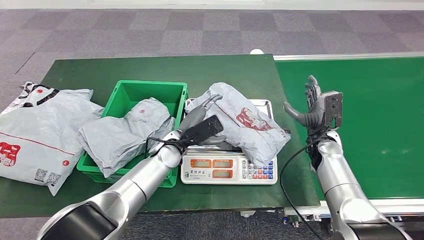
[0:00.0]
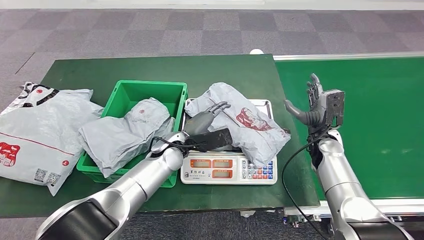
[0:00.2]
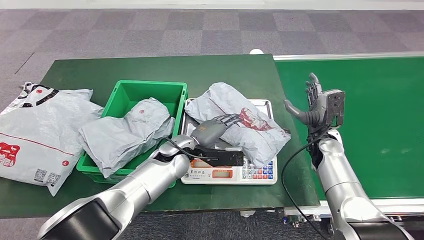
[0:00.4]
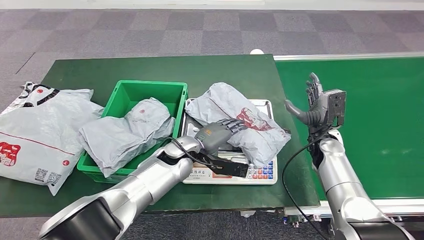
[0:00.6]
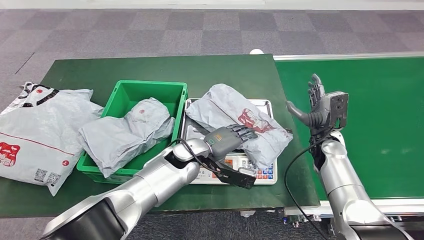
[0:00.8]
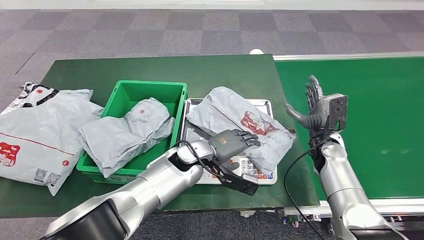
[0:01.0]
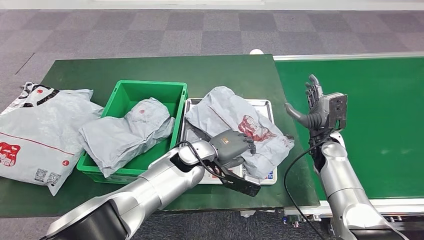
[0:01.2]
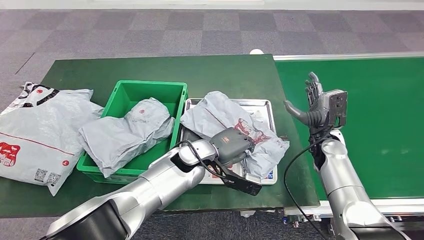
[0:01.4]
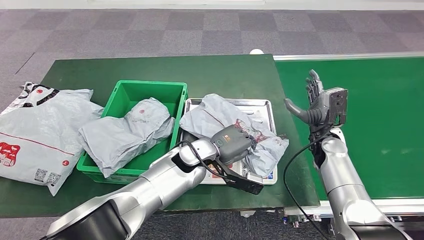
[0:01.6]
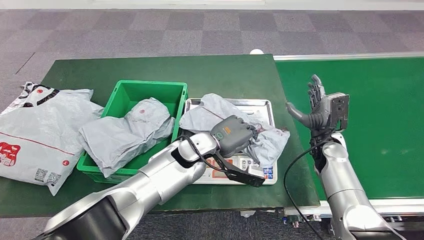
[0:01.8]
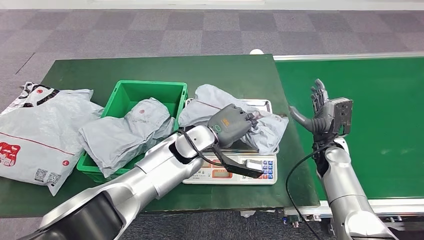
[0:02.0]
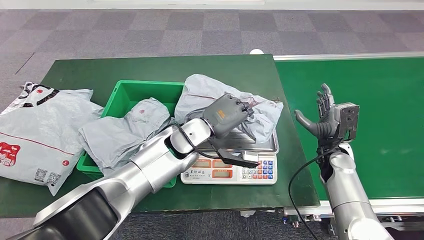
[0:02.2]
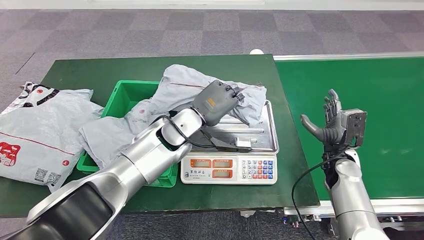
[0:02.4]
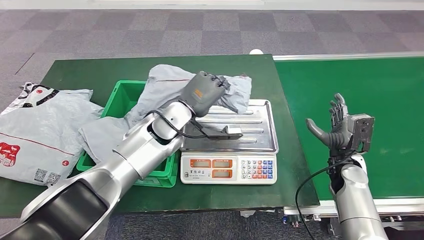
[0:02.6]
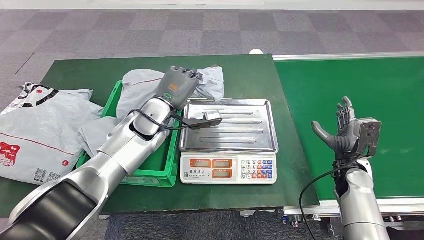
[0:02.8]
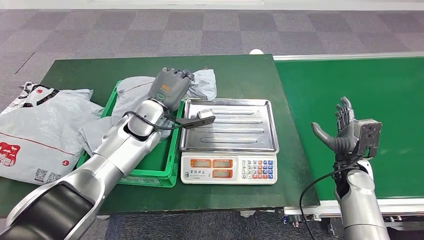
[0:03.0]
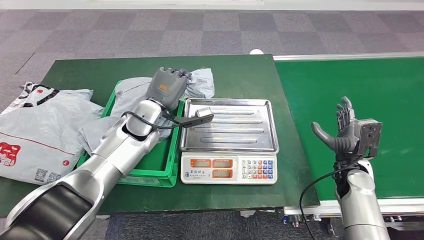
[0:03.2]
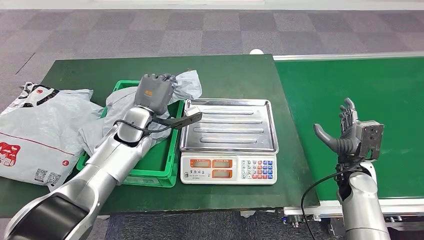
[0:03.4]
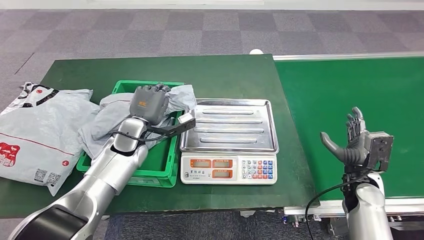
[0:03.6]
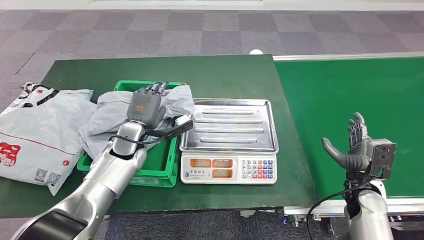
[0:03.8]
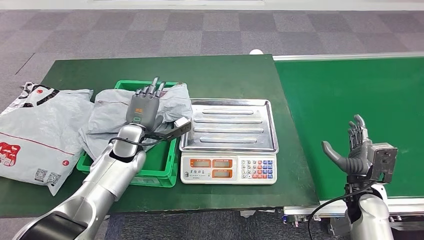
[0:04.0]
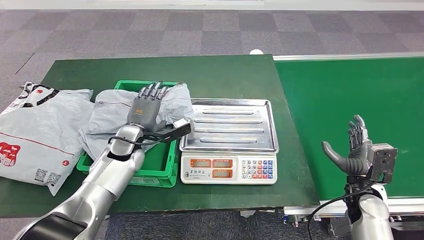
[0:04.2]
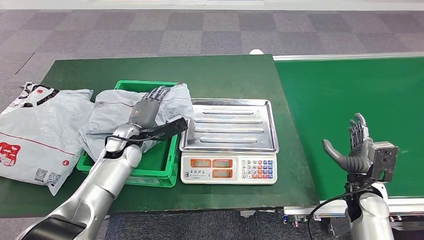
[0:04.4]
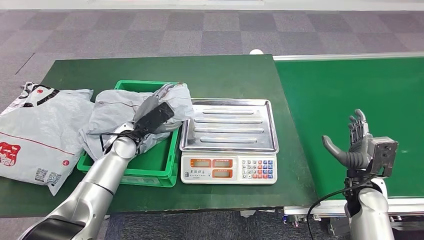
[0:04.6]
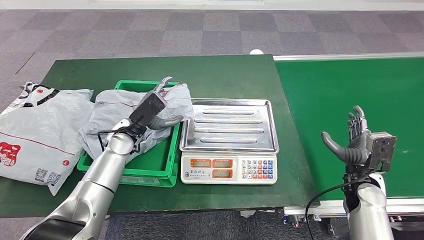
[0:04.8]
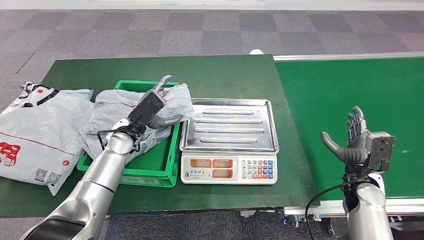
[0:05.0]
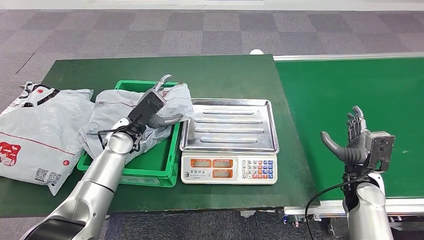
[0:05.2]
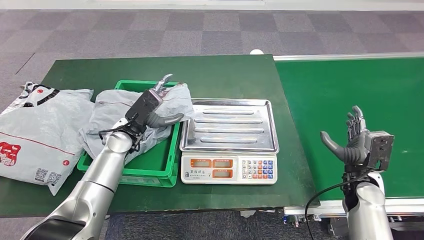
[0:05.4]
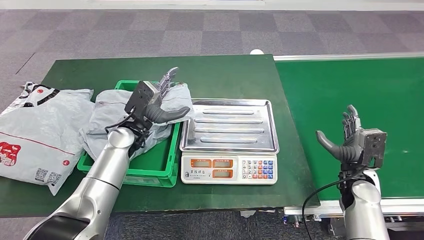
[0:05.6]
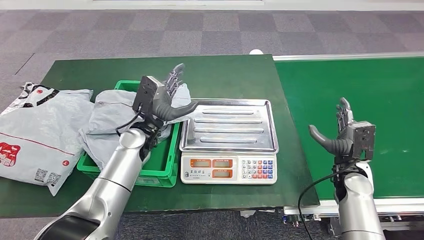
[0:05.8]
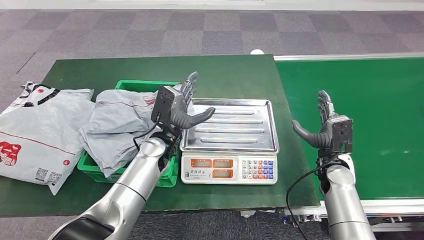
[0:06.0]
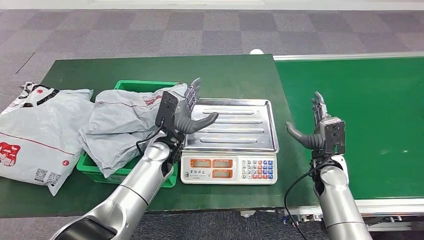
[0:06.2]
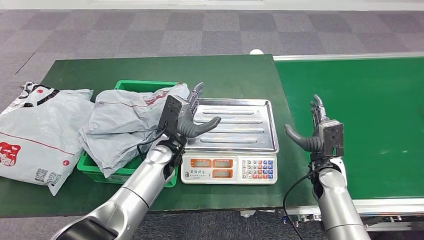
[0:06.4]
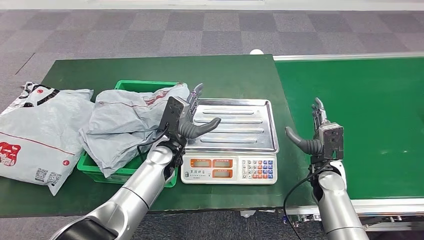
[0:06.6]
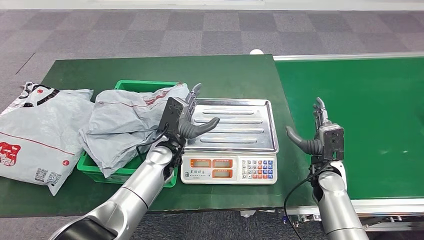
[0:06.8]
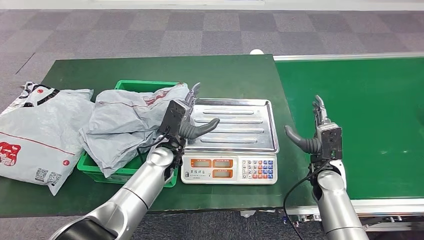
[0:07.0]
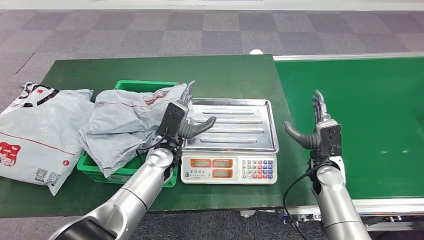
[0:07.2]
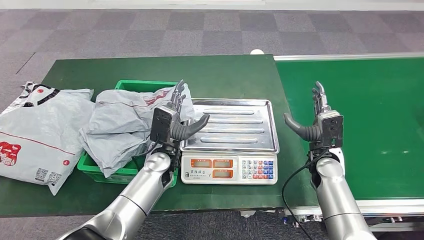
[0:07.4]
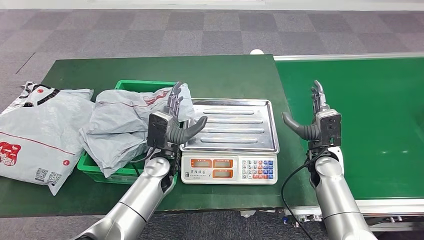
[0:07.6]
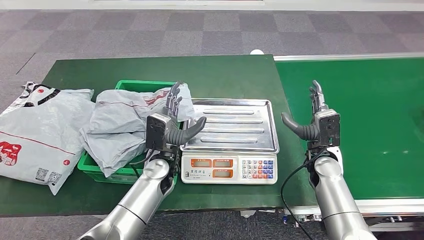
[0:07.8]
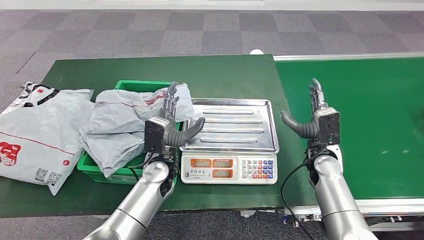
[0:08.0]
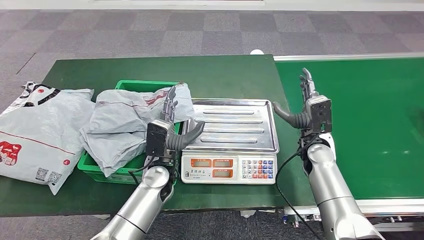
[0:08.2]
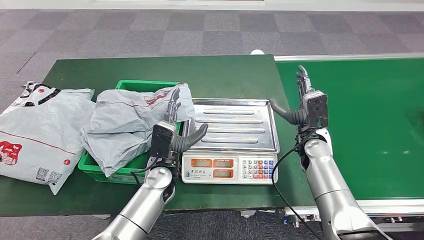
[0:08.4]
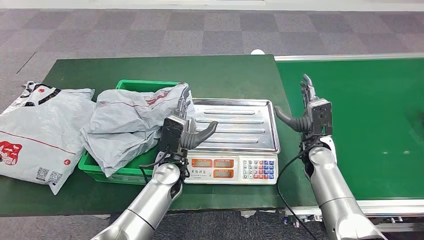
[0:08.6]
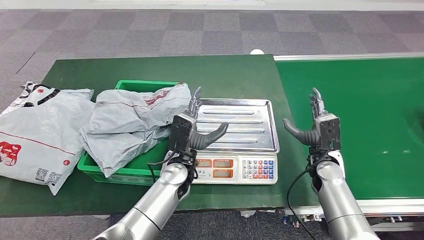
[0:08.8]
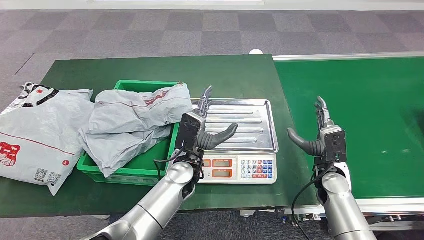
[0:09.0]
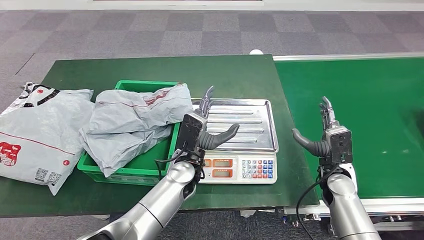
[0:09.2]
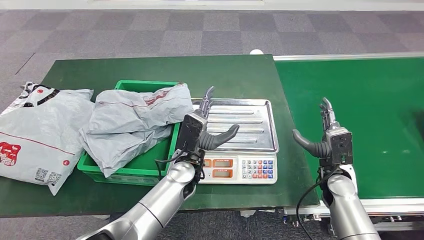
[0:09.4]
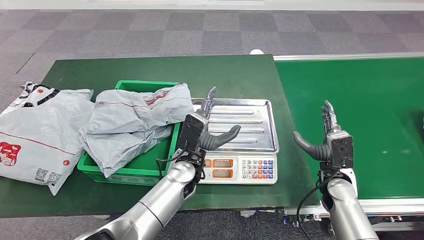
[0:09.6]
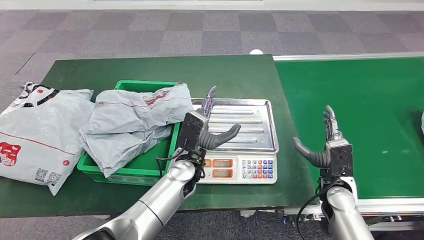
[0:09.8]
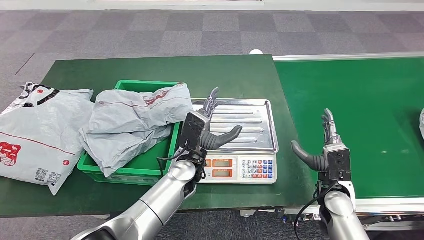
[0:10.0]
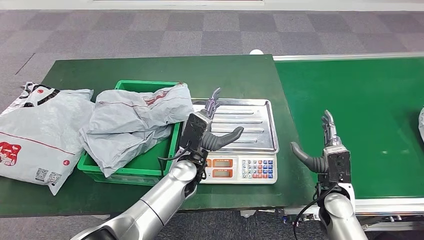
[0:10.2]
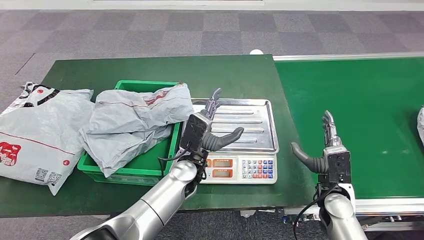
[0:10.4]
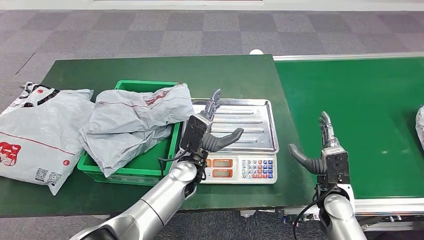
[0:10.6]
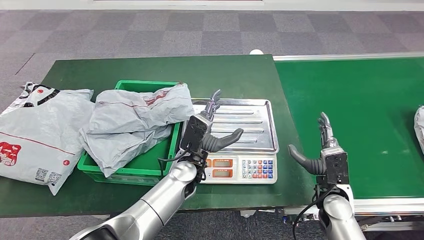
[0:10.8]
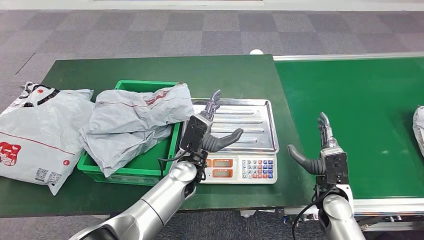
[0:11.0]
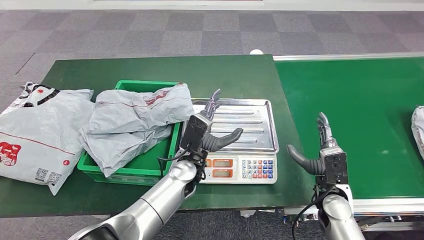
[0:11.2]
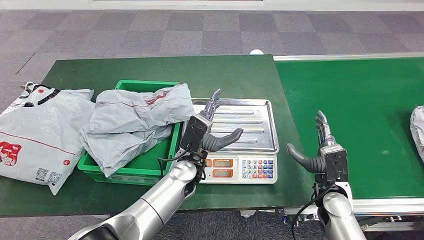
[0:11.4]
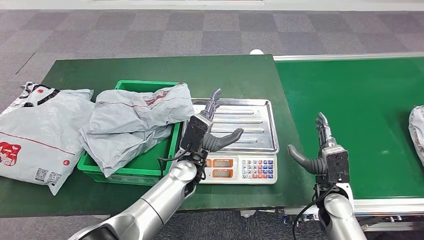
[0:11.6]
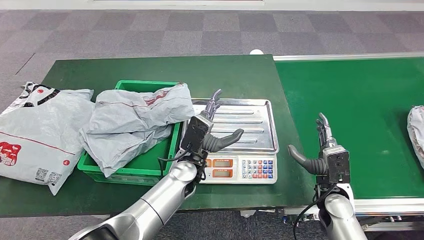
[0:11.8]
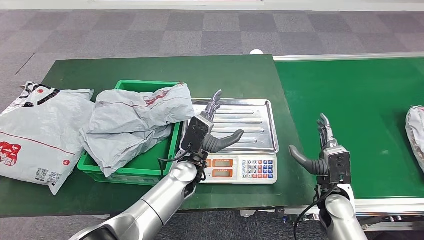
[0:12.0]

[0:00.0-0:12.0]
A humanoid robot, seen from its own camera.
Step, 0:00.0 to 0:03.0: Pick up the parcel from the inbound machine.
Step, 0:03.4 to 0:05.4: Place the parcel into the delivery box.
0:00.0 to 0:01.6: The left hand goes about 5 cm to the right.
0:03.0 to 0:04.4: The left hand shifts approximately 10 cm downward and to the left; the right hand shifts about 5 cm backward.
0:04.4 to 0:06.0: The right hand heads forward and to the left, covering some 10 cm, while the left hand moves to the right, about 10 cm.
0:06.0 to 0:07.6: The left hand ends up approximately 5 cm from where it was.
0:07.6 to 0:09.0: The left hand shifts approximately 5 cm to the right.
0:09.0 to 0:10.4: The right hand ends up approximately 5 cm from where it was.
0:10.4 to 0:12.0: Neither hand changes place.

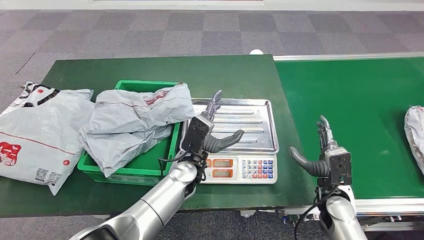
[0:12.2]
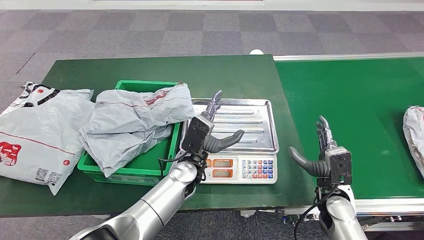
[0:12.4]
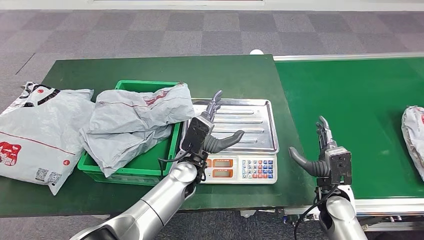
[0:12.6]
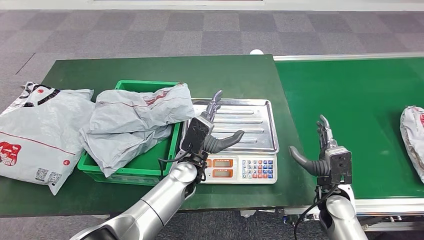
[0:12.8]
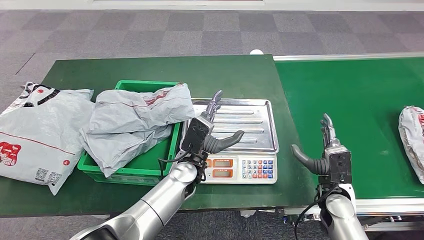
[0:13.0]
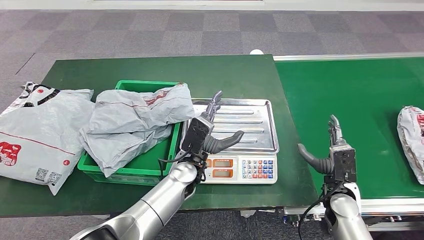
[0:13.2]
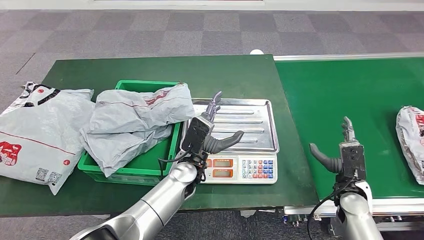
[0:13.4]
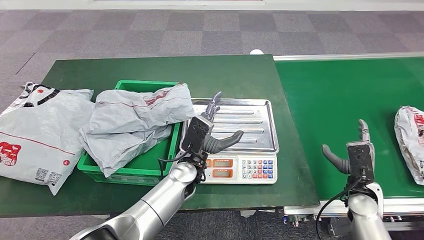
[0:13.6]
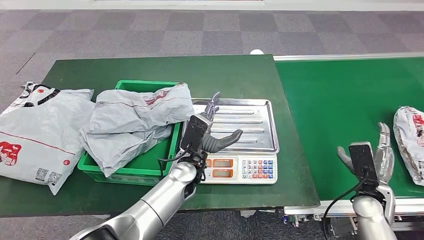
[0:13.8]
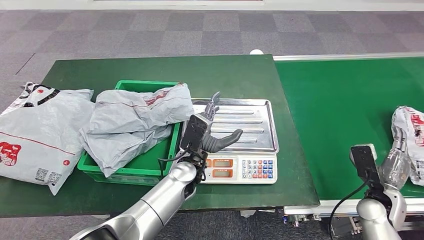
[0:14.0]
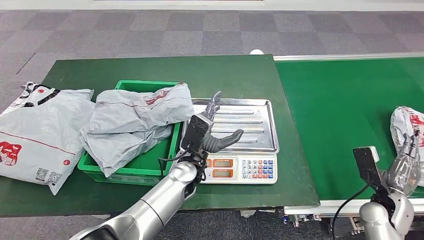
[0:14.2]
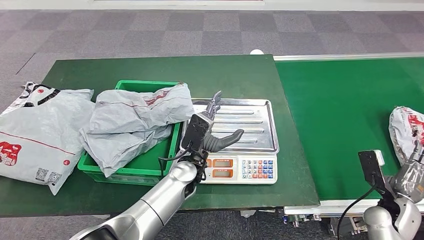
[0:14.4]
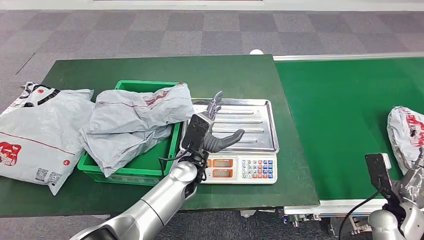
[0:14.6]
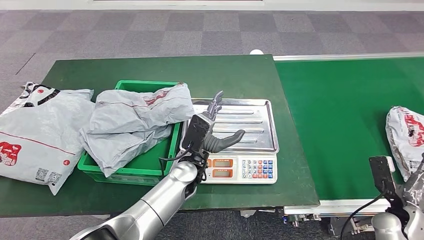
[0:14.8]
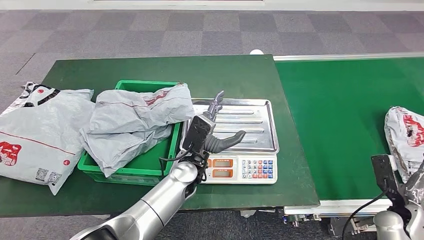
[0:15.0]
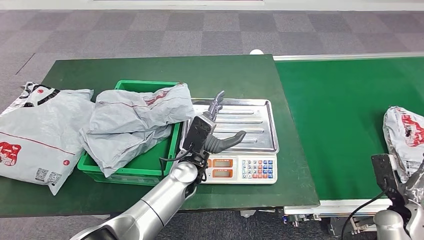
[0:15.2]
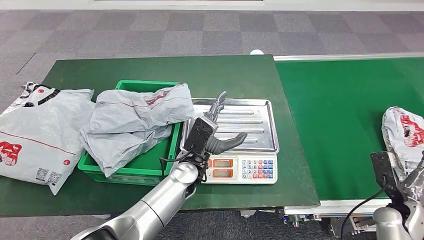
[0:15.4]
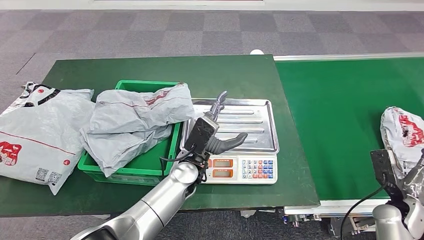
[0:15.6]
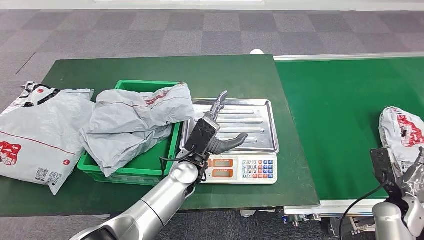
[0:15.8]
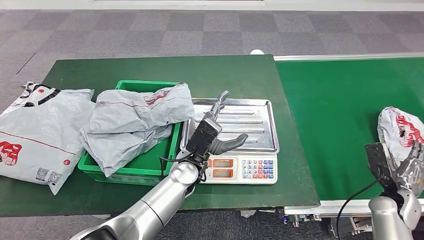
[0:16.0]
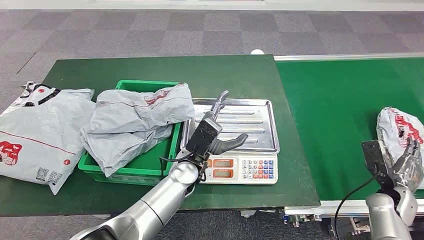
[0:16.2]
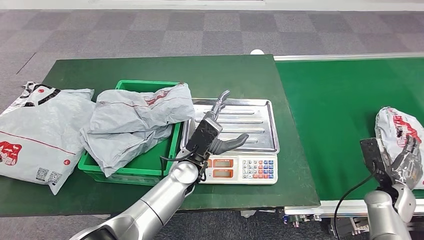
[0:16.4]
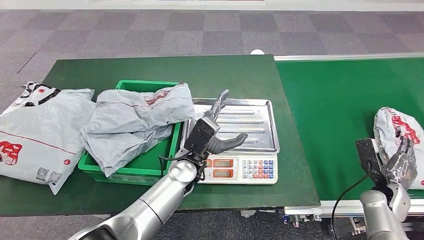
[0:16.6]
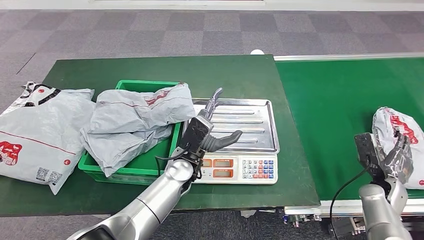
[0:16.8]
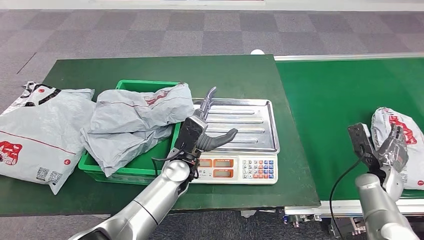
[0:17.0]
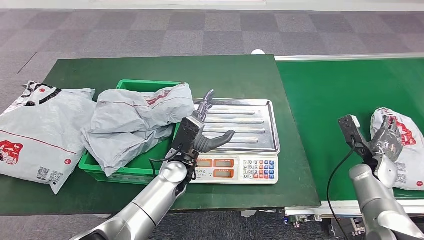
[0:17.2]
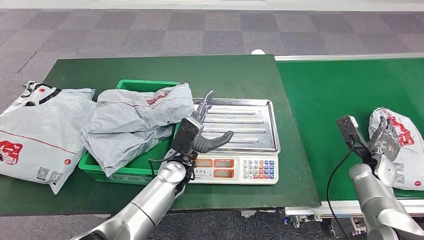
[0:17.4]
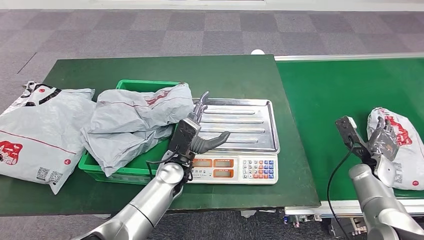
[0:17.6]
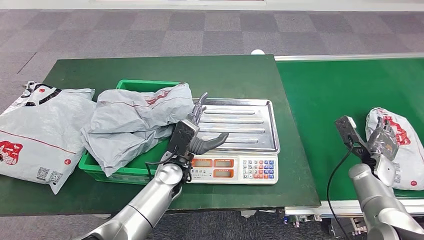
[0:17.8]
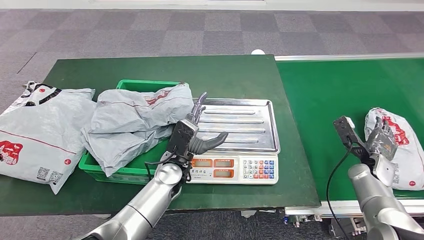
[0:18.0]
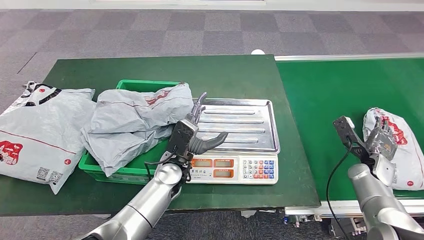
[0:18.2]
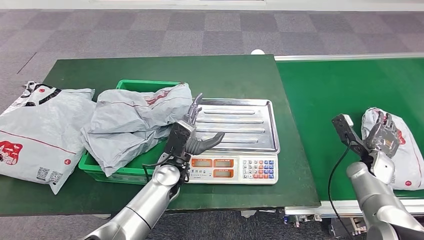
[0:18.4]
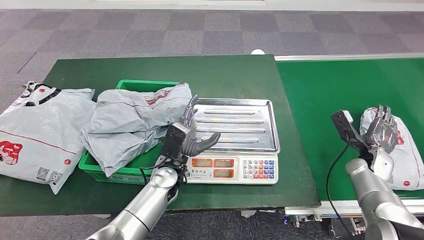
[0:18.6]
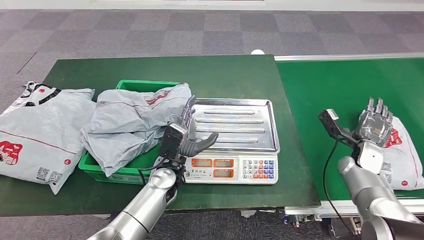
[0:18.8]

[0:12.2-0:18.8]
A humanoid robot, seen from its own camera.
0:12.2 to 0:13.8: The right hand travels to the right by approximately 10 cm.
0:13.8 to 0:15.4: The right hand goes approximately 10 cm to the right.
0:15.4 to 0:17.2: The right hand is displaced forward by approximately 10 cm.
0:17.2 to 0:18.8: The hands make only small movements.
